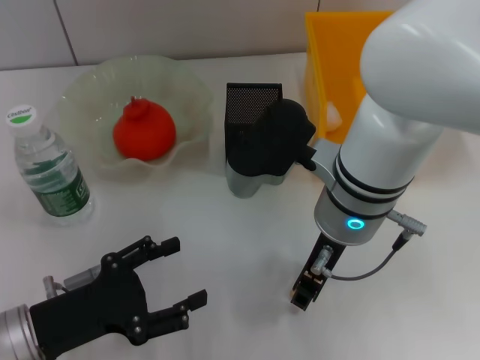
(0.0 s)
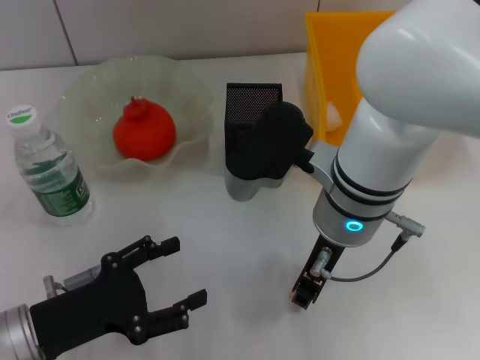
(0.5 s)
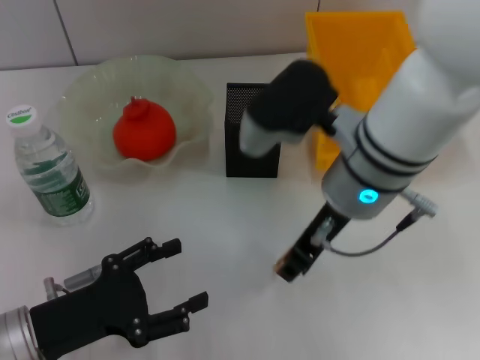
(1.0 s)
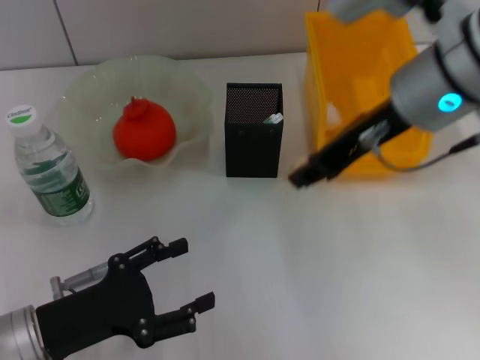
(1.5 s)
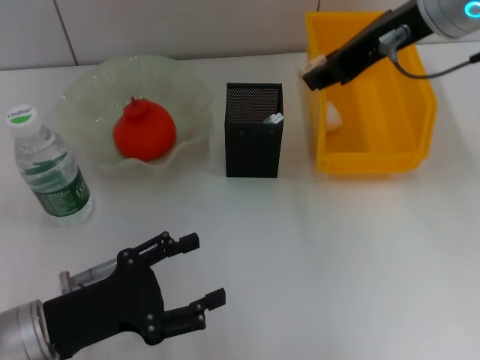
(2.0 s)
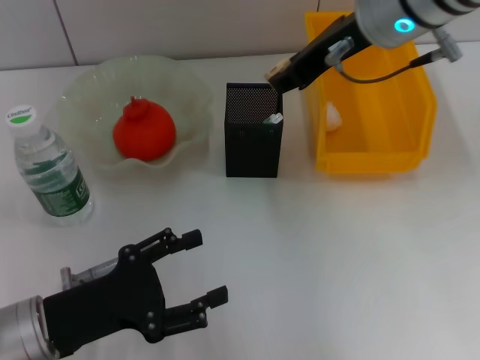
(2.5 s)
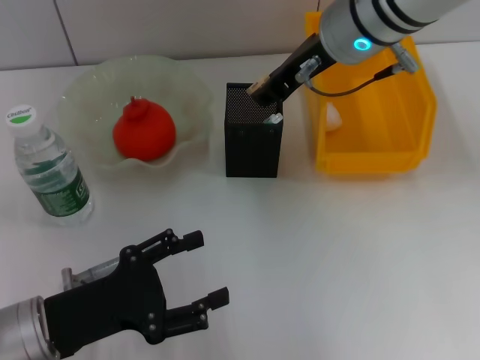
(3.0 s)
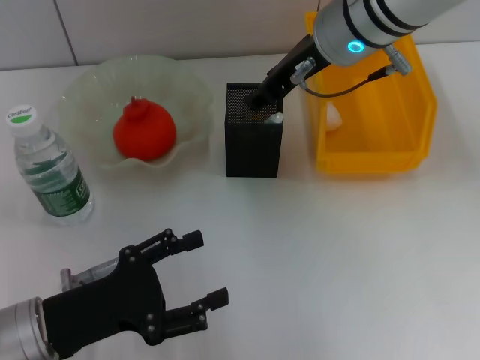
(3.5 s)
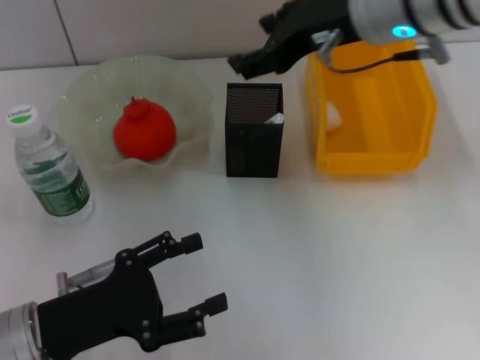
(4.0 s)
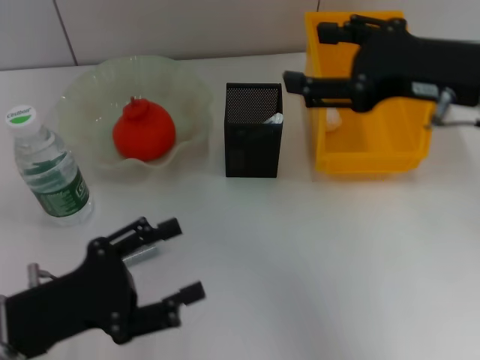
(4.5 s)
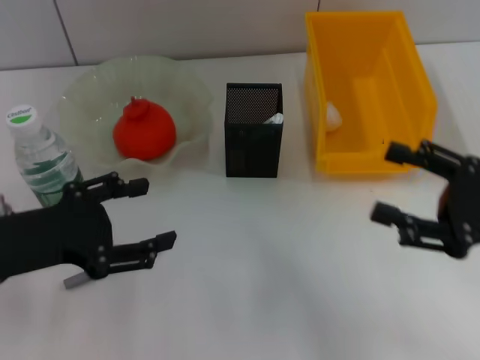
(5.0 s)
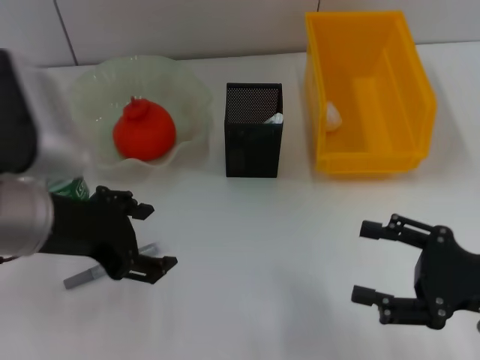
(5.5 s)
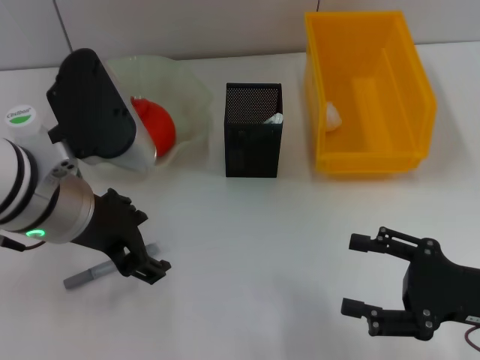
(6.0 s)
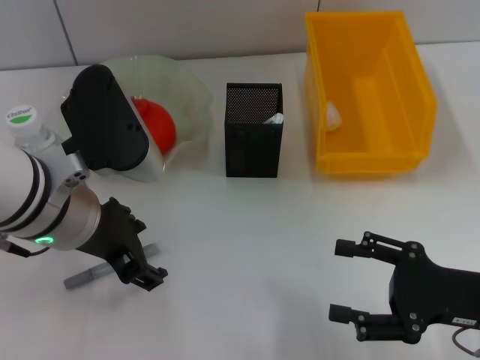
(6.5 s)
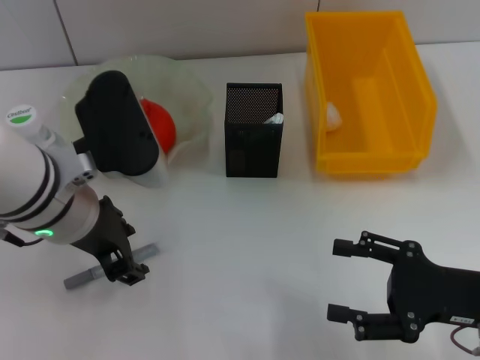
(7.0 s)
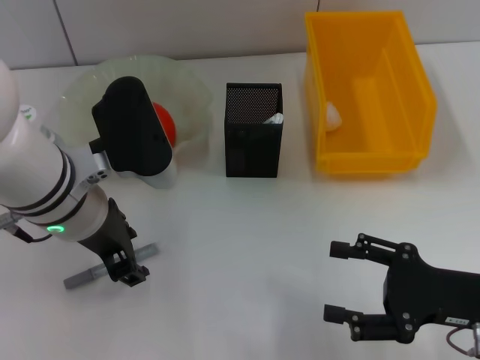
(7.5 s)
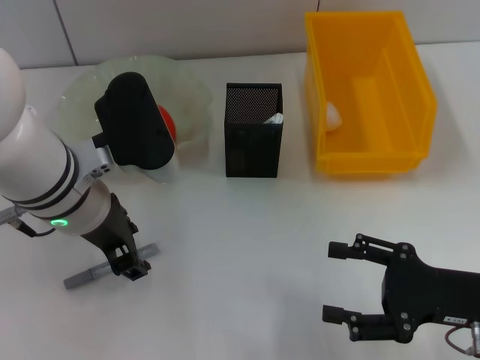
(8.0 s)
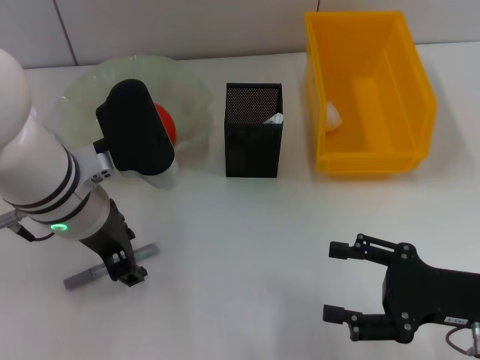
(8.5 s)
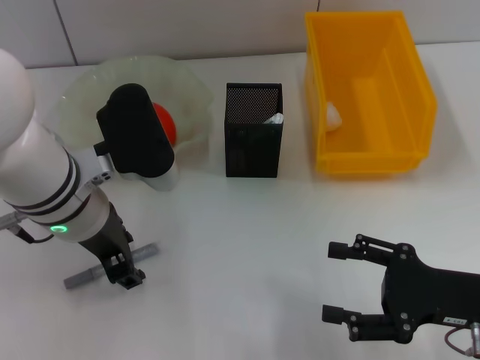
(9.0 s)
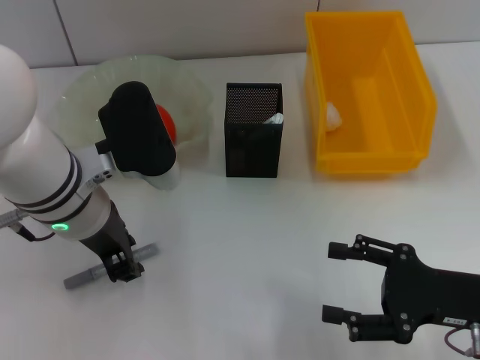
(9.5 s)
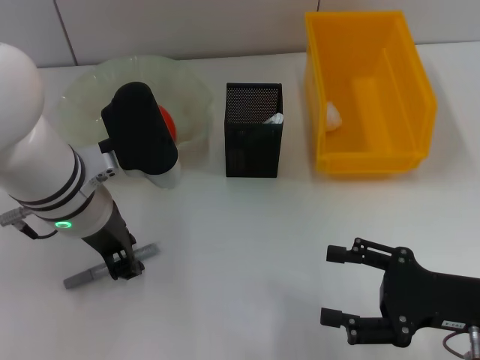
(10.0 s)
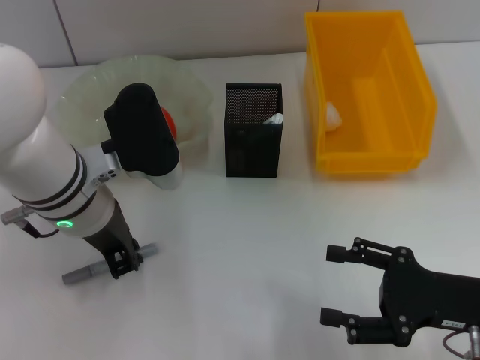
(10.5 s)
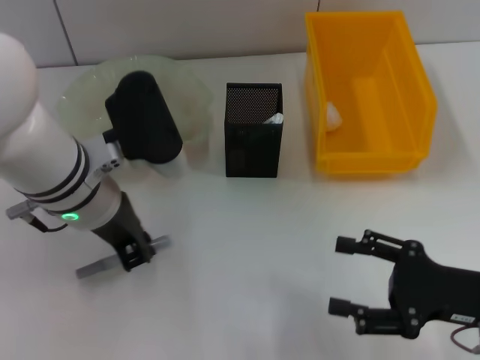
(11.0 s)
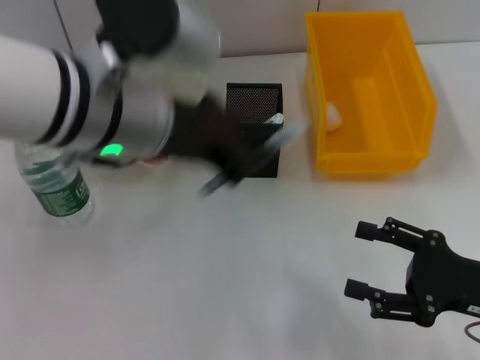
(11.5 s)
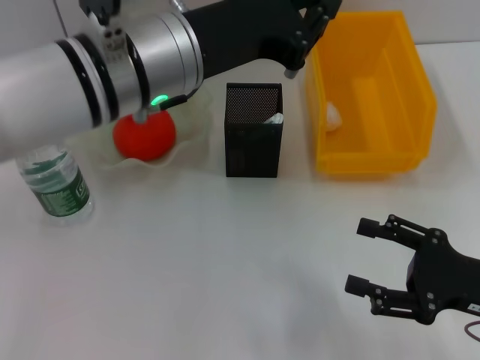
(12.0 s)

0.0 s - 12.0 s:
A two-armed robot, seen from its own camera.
Step, 1.0 s - 3.5 s: Put the eraser into the pen holder with the right hand.
Step, 4.0 s - 10.5 s: Grab the gray glue with the left hand.
0.0 s - 2.0 s: The right gripper goes roughly 15 cm upward and to the right.
2.0 s - 4.0 s: The right gripper opens its fingers.
4.0 s - 6.0 s: The right gripper goes some 30 cm downward, backward and to the right, and opens up. Meanwhile the left gripper shifts about 15 cm upward, forward and to the right.
6.0 s - 8.0 s: There are only small adjustments of the grippers.
8.0 s - 10.0 s: Both grippers stay about where they are.
10.0 s - 12.0 s: The left gripper travels upward and to the right by roughly 10 cm, and closes.

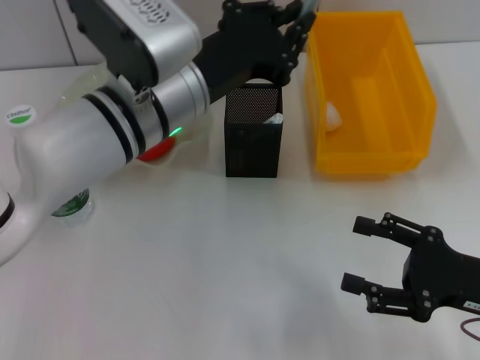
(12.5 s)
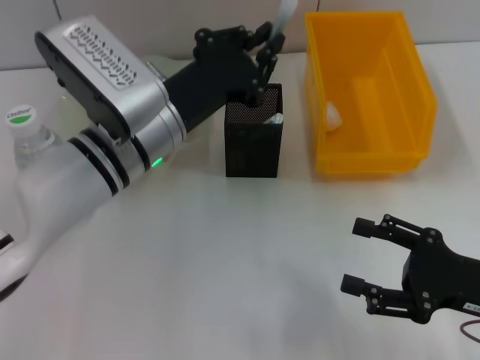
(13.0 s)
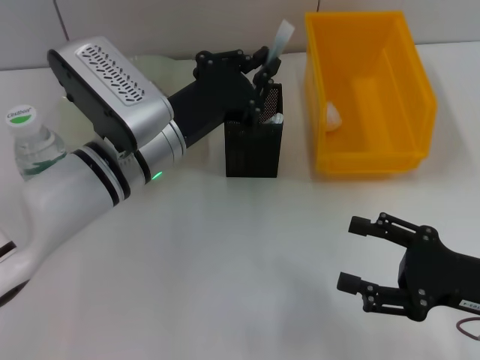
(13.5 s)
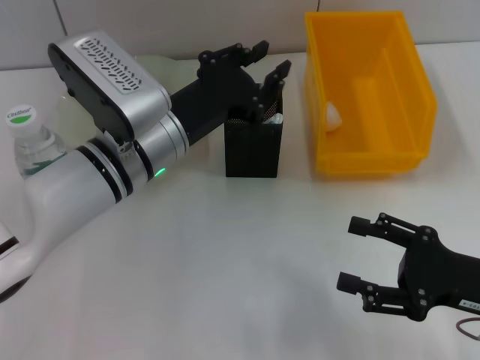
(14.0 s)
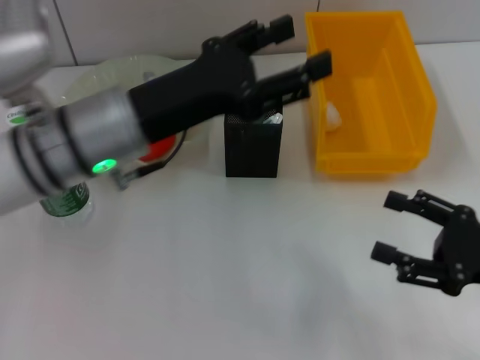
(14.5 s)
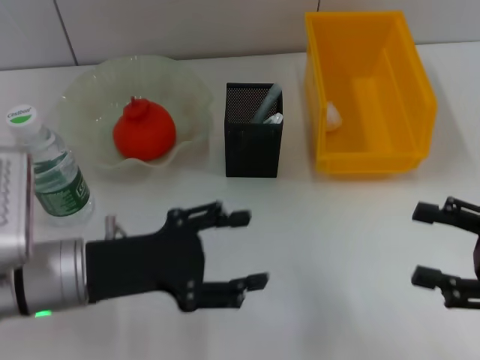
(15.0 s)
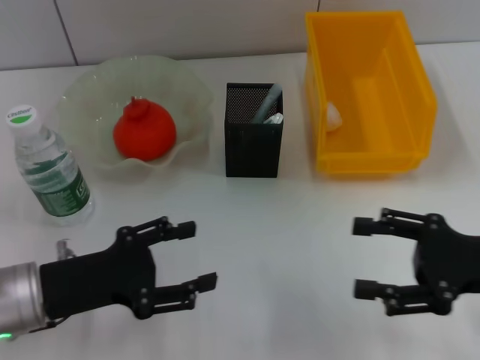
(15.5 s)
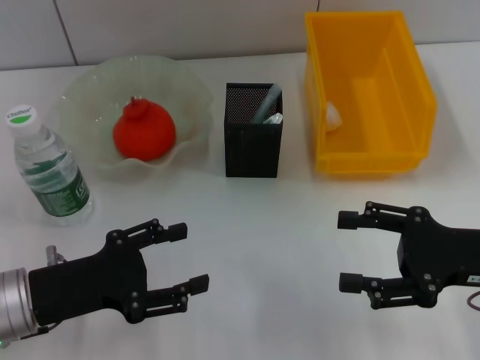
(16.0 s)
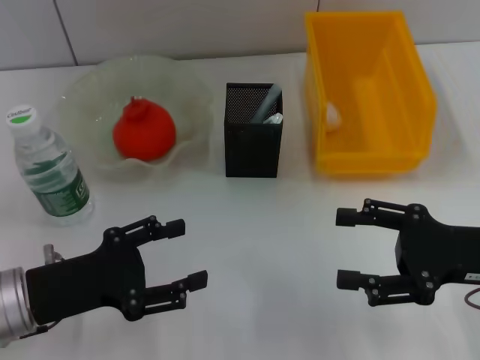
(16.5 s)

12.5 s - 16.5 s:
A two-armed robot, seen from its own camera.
12.5 s - 14.5 s: The left gripper goes roughly 5 cm to the left, and opens up.
14.5 s - 16.5 s: The left gripper shifts about 15 cm to the left, downward and backward.

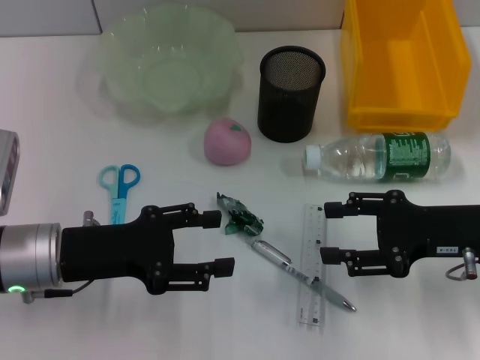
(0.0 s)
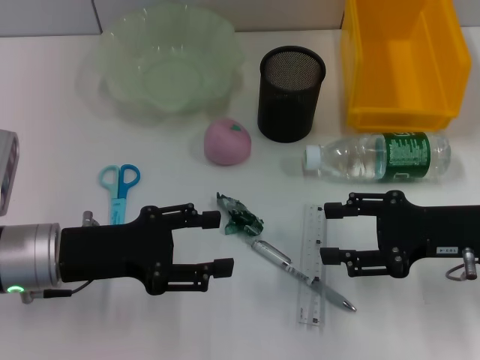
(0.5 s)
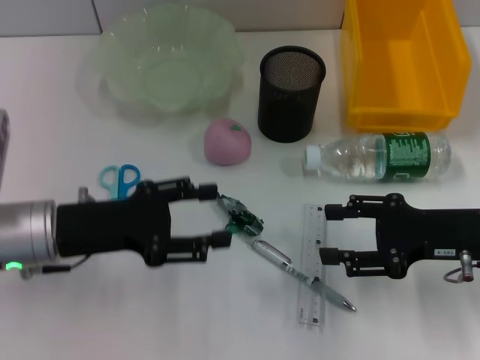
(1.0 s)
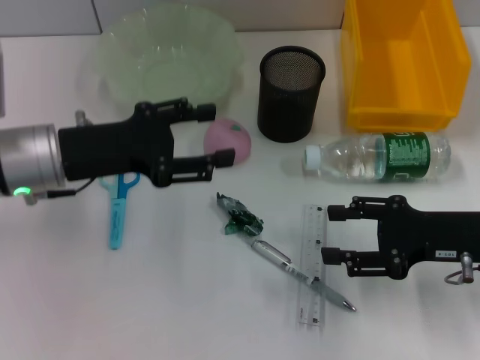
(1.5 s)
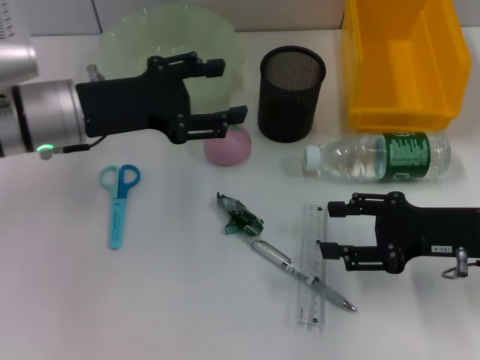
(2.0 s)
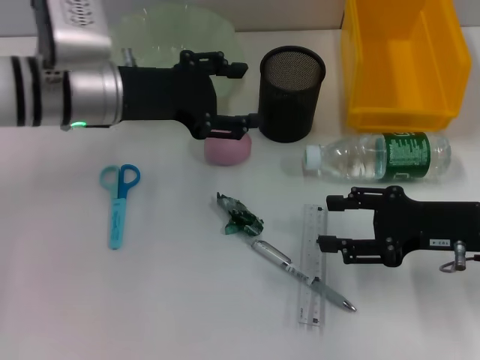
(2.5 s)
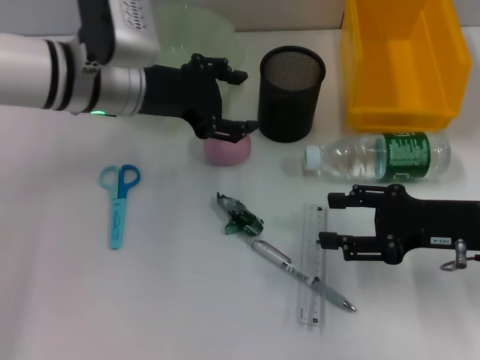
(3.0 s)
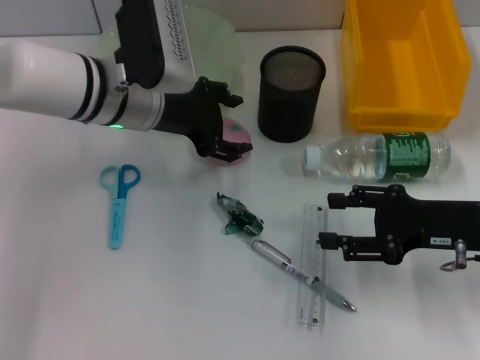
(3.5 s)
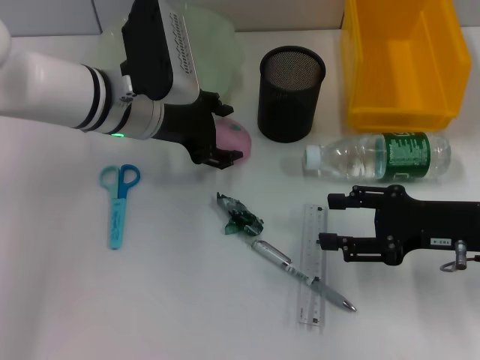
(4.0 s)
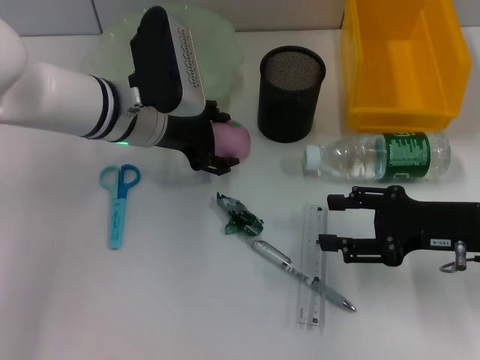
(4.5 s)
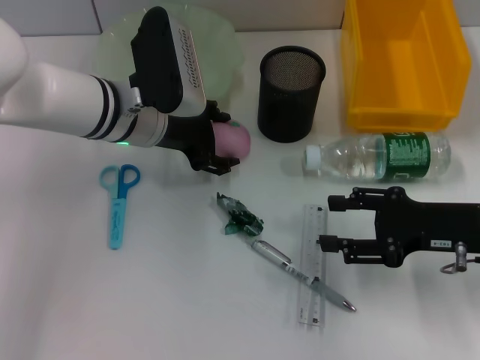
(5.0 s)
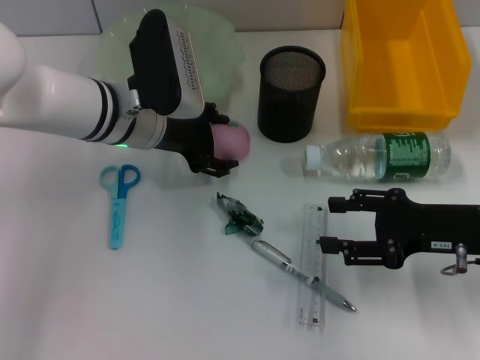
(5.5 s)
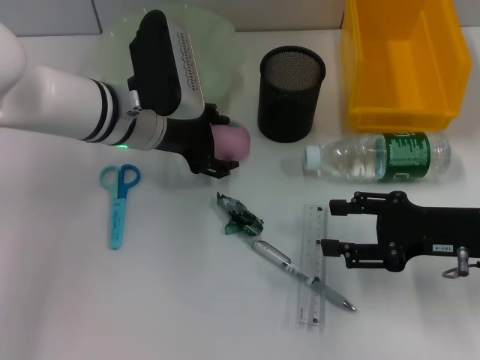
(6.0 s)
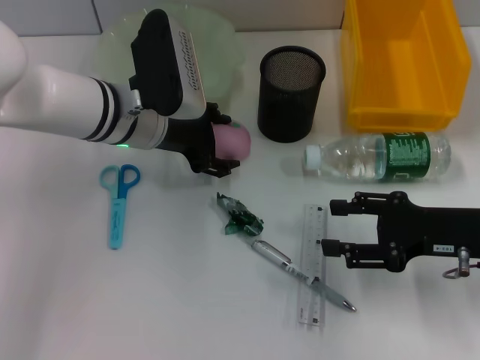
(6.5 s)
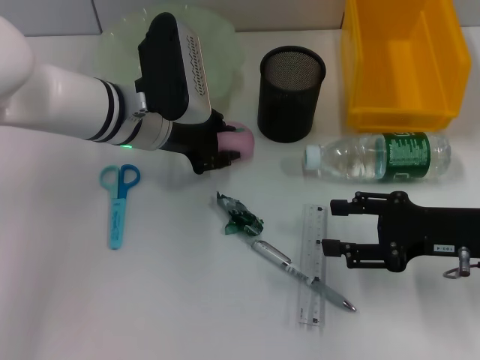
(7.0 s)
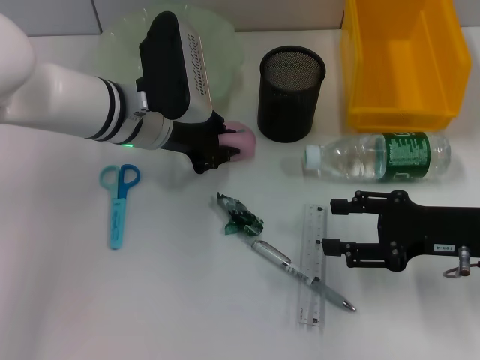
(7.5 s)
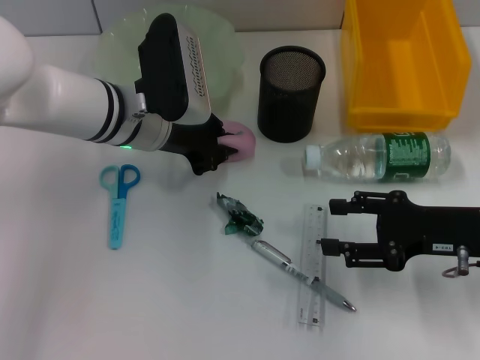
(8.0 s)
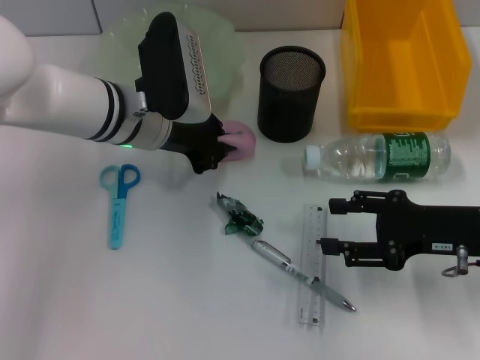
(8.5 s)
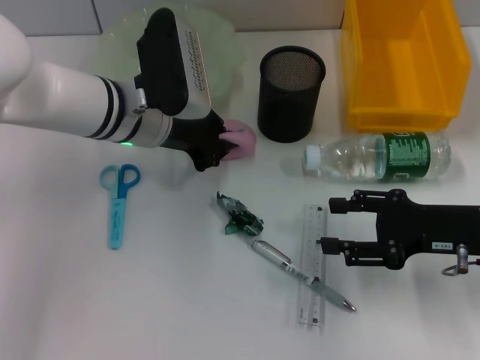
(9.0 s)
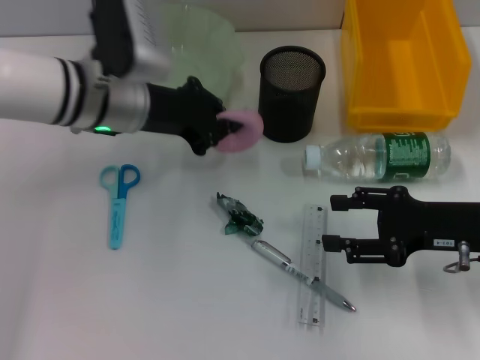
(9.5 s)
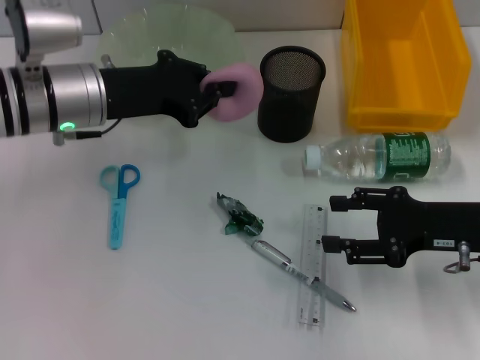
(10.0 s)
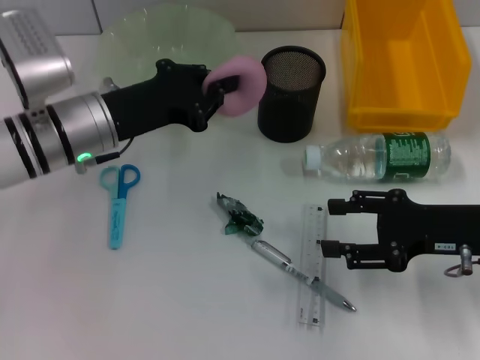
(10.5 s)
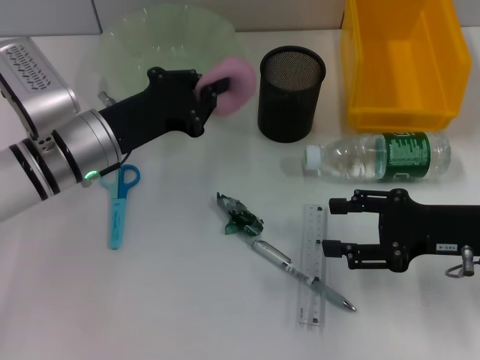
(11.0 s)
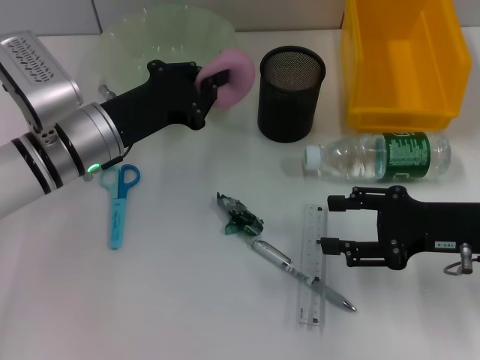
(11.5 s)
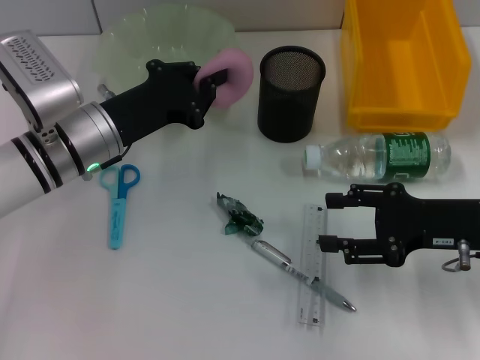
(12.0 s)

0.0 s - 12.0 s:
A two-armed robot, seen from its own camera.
Step, 0.0 s - 8.5 s: Grab the peach with the left hand.
0.0 s - 2.0 s: The left gripper goes some 10 cm forward and upward.
2.0 s - 4.0 s: The left gripper shifts roughly 5 cm to the right.
4.0 s - 6.0 s: Both grippers stay about where they are.
6.0 s - 8.0 s: The left gripper closes.
8.0 s - 10.0 s: The left gripper heads to the left, covering approximately 5 cm.
10.0 s - 12.0 s: The left gripper goes about 5 cm downward.
